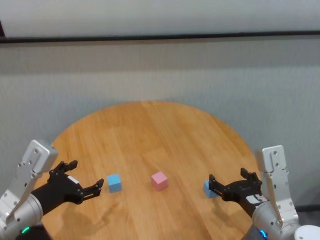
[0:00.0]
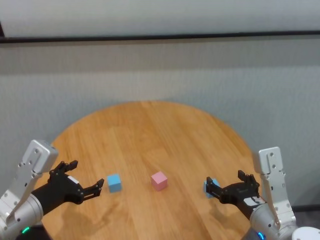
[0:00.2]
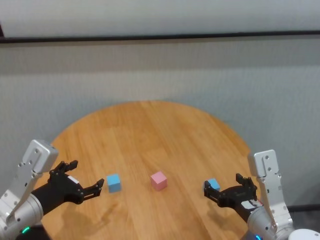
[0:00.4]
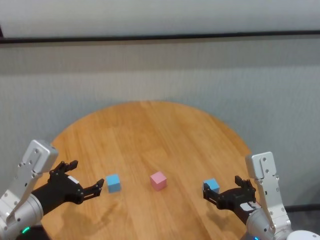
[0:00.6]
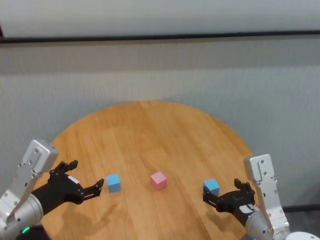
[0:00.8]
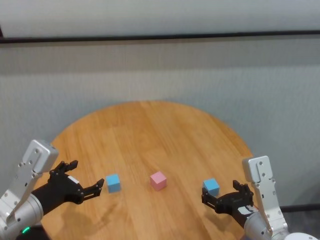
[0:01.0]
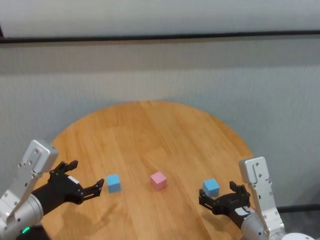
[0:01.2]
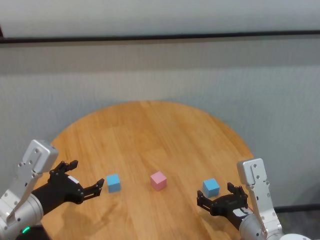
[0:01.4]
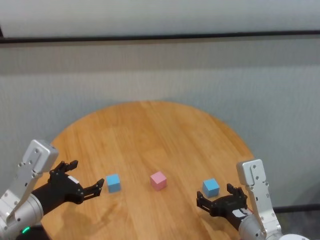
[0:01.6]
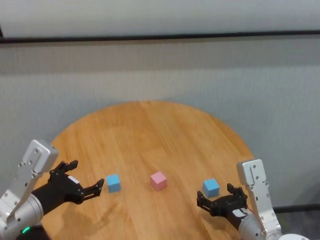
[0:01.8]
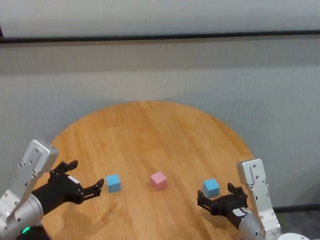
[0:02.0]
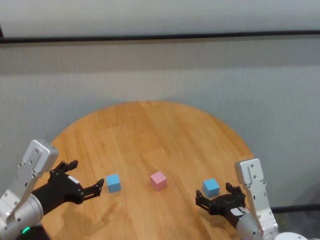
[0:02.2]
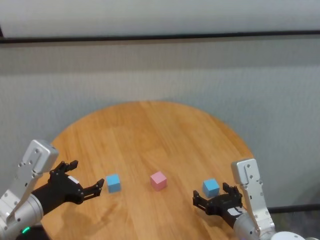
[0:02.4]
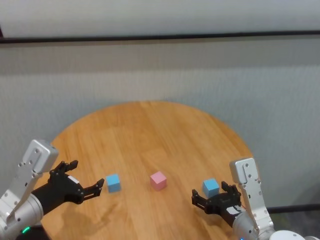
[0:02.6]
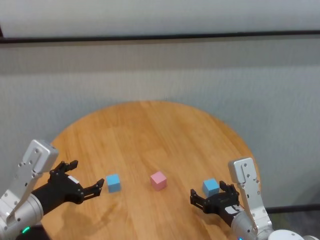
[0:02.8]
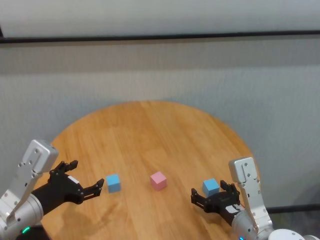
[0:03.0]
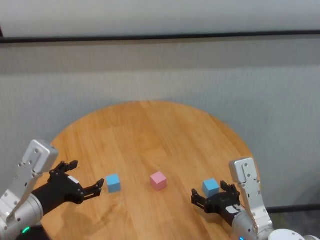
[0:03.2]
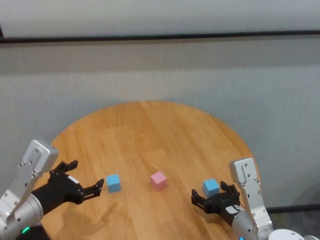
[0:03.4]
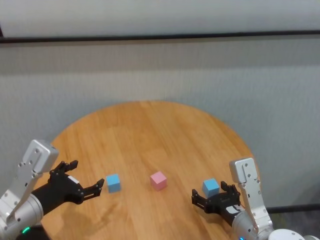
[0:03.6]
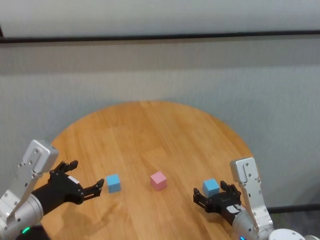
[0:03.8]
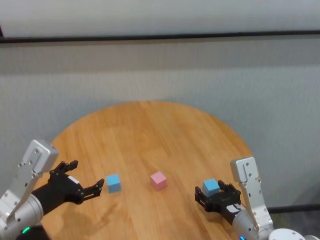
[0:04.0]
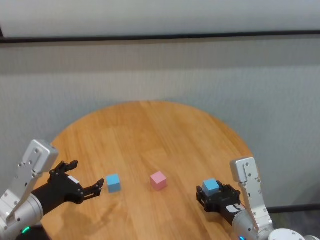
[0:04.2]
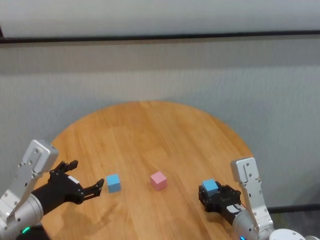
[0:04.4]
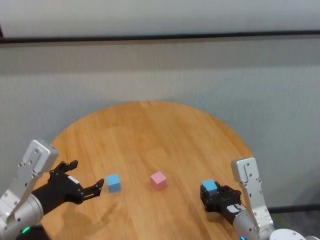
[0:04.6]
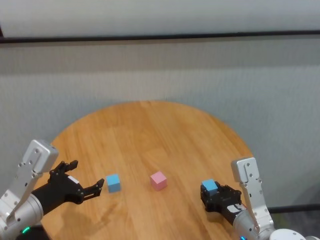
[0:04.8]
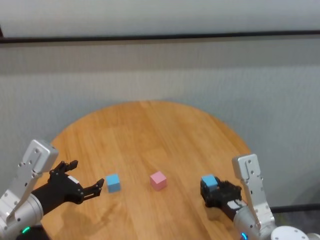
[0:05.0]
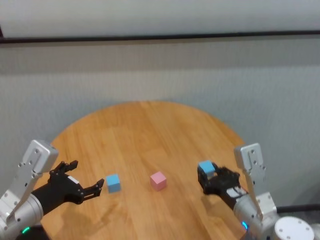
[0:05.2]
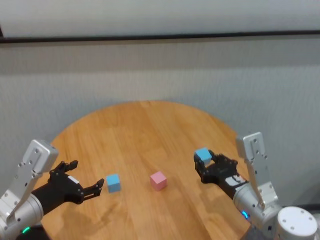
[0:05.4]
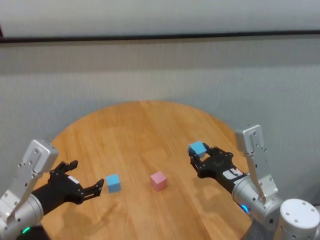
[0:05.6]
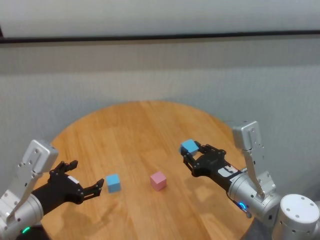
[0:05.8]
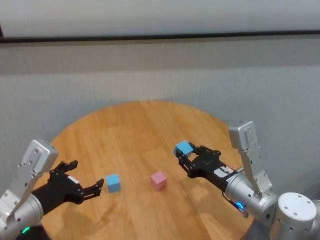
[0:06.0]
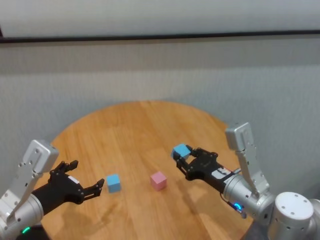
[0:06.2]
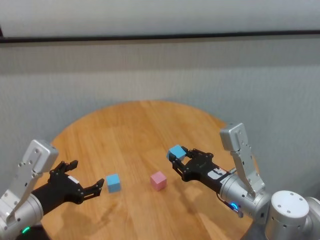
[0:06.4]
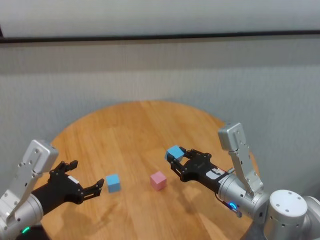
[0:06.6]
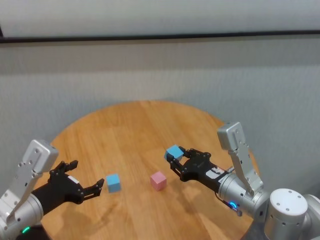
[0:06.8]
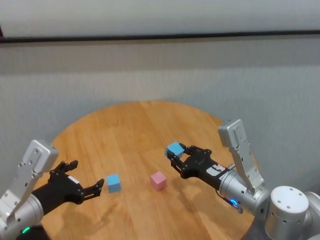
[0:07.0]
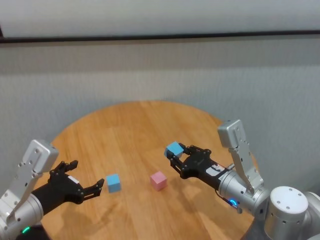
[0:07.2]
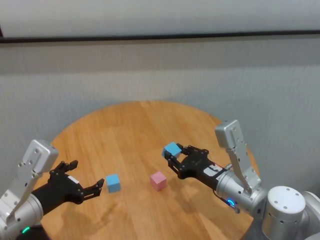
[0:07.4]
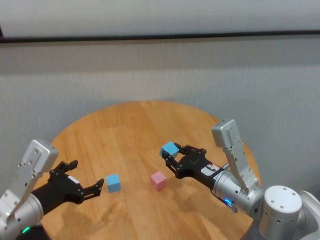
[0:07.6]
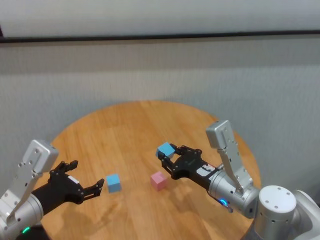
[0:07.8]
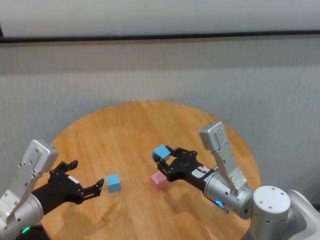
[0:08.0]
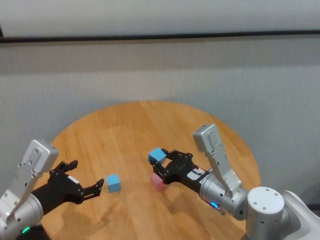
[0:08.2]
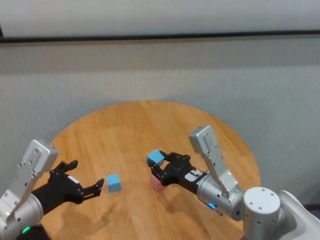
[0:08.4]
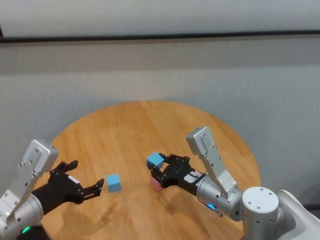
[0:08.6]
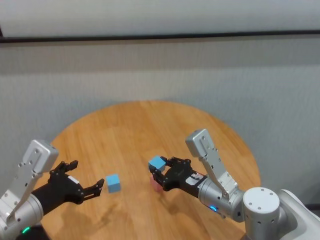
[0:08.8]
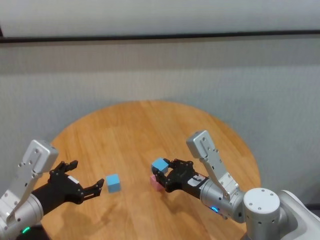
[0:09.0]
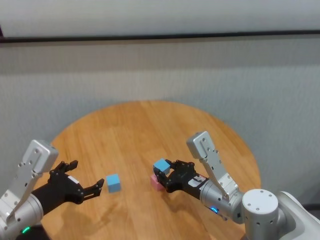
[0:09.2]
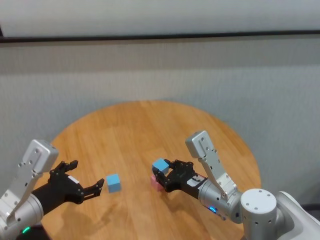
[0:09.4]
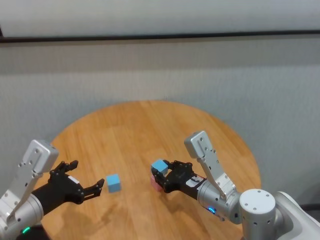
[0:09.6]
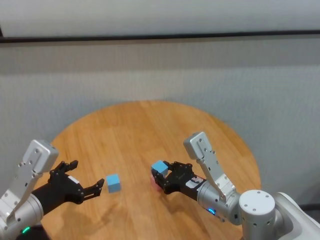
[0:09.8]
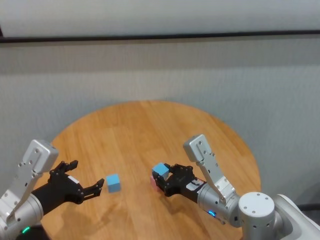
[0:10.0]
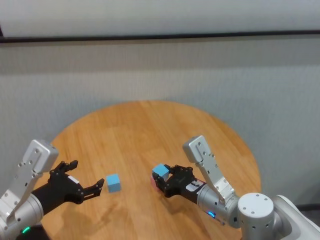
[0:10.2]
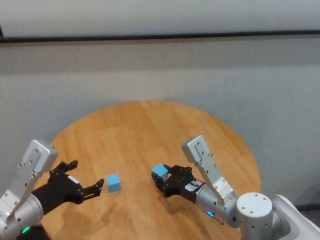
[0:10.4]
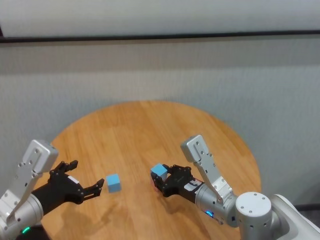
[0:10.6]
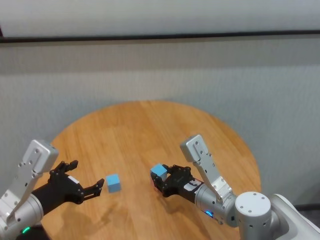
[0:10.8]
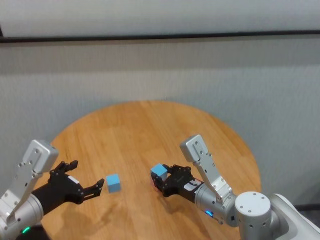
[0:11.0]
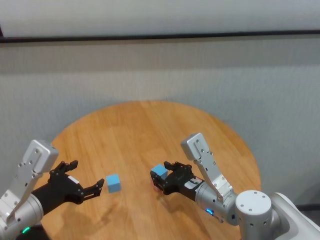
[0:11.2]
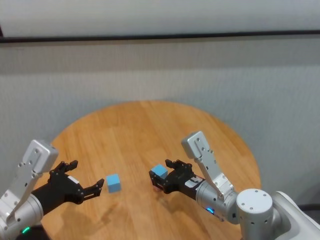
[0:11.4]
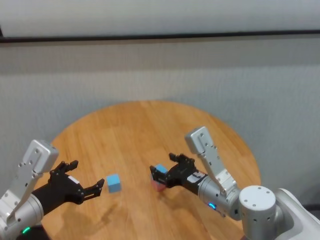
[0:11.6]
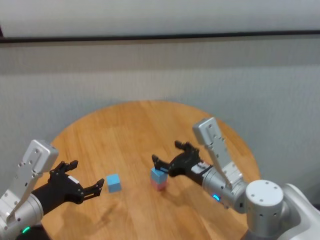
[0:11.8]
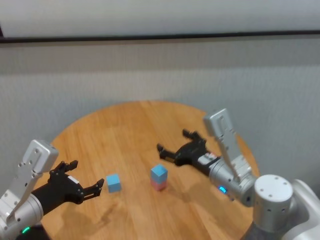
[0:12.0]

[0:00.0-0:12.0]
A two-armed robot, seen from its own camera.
Task of the whole recording: stack building blocks on the table.
Step, 0:00.0 to 0:04.4: Grasp the blue building block with right gripper.
Step, 0:04.8 to 0:11.4: Place the blue building block on the pink building blocks with right gripper.

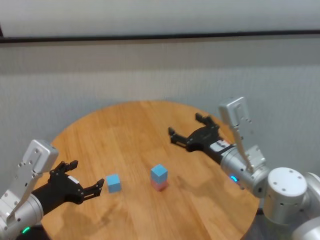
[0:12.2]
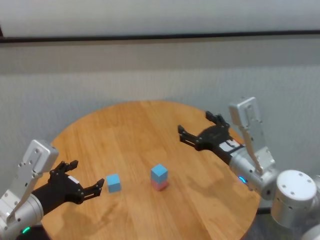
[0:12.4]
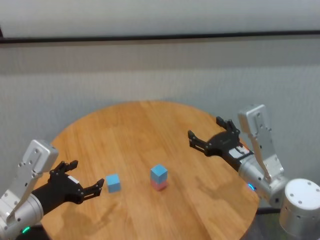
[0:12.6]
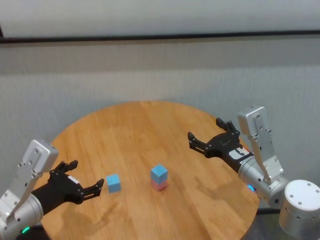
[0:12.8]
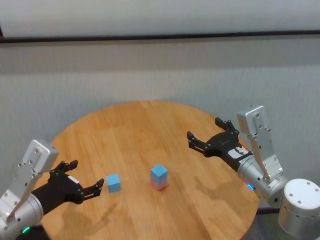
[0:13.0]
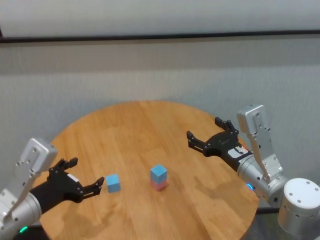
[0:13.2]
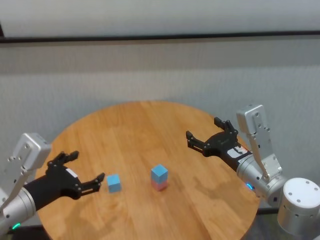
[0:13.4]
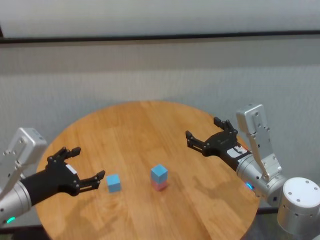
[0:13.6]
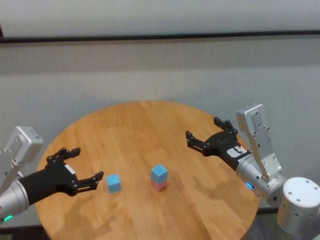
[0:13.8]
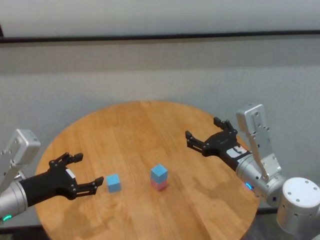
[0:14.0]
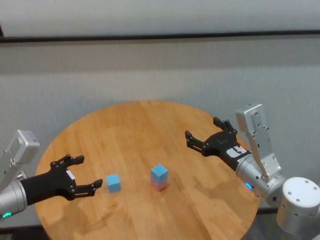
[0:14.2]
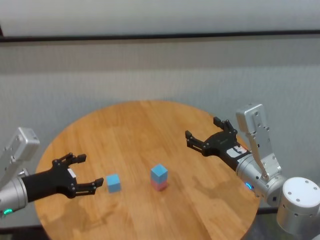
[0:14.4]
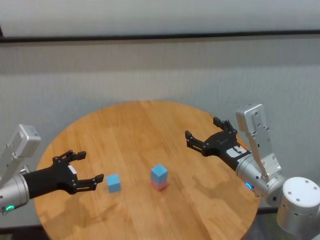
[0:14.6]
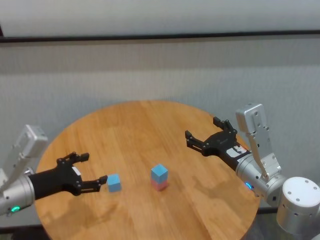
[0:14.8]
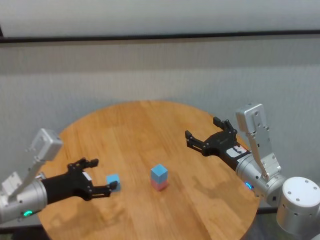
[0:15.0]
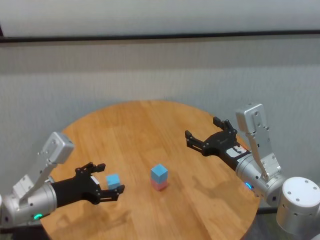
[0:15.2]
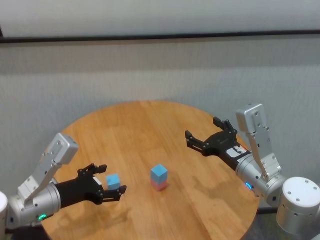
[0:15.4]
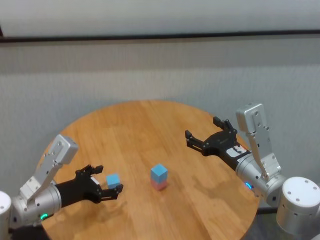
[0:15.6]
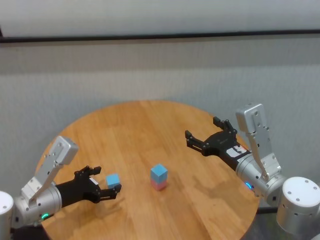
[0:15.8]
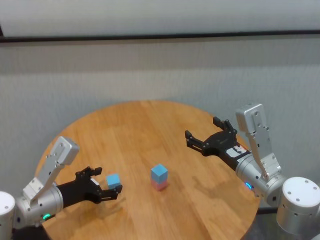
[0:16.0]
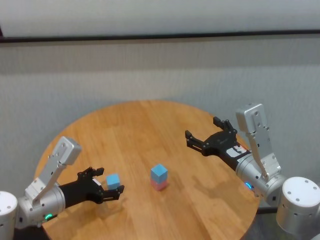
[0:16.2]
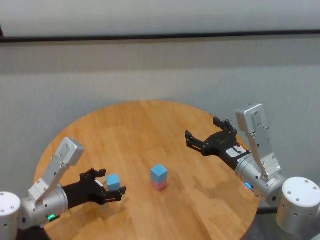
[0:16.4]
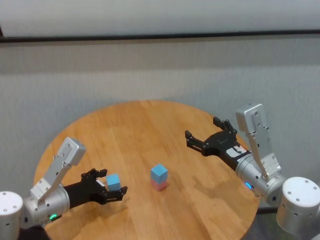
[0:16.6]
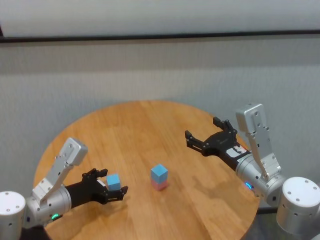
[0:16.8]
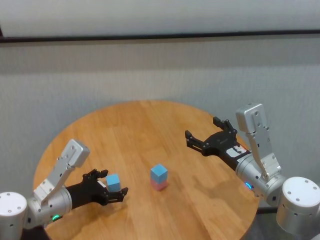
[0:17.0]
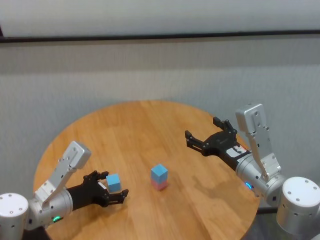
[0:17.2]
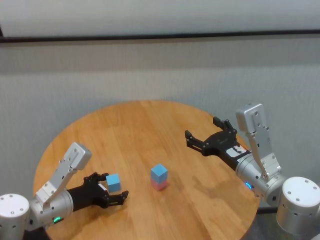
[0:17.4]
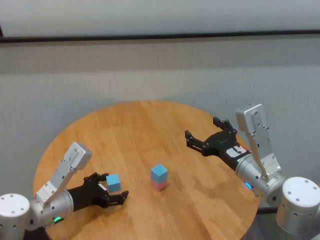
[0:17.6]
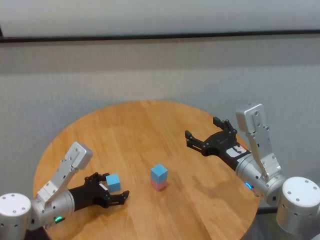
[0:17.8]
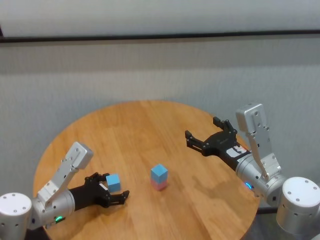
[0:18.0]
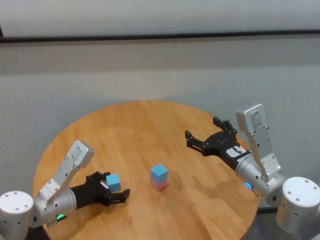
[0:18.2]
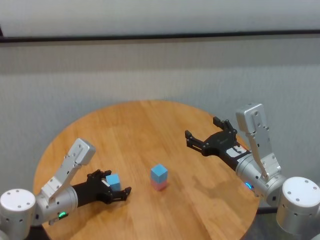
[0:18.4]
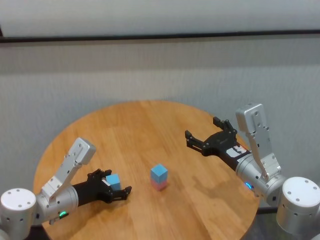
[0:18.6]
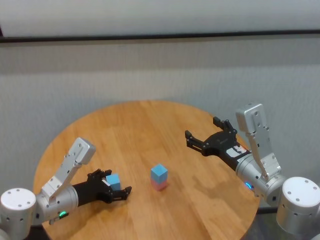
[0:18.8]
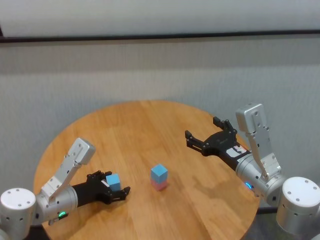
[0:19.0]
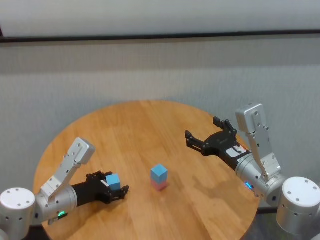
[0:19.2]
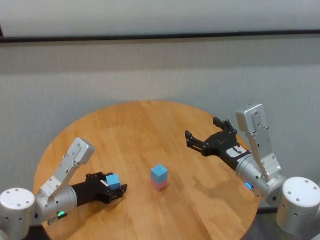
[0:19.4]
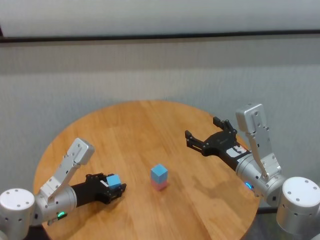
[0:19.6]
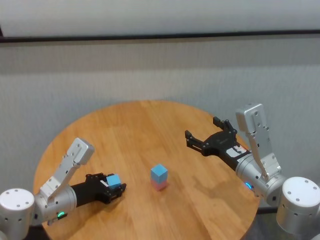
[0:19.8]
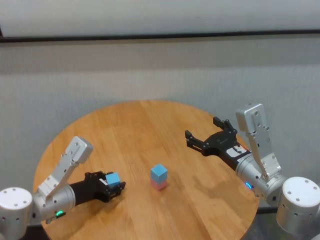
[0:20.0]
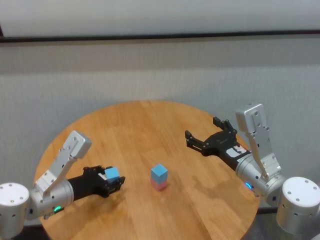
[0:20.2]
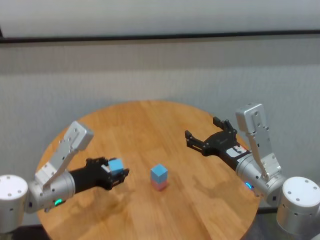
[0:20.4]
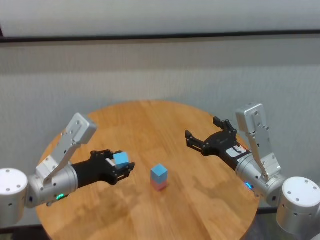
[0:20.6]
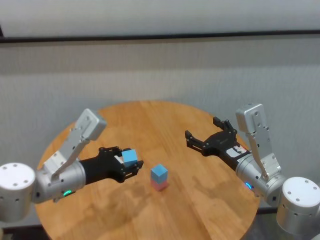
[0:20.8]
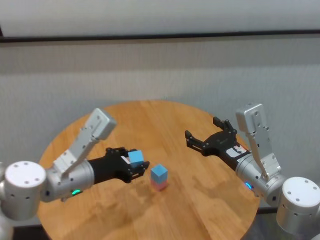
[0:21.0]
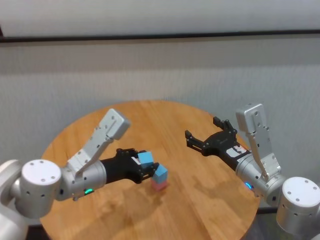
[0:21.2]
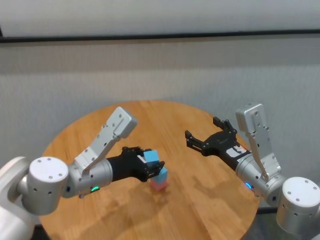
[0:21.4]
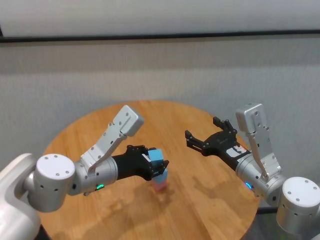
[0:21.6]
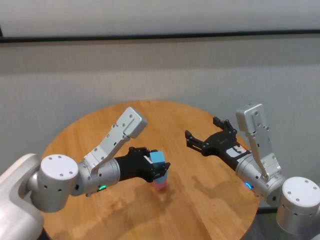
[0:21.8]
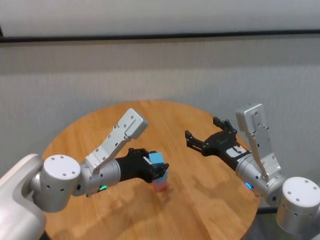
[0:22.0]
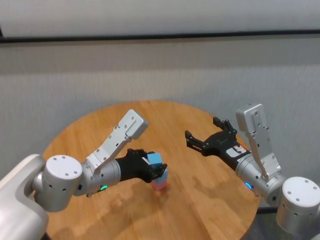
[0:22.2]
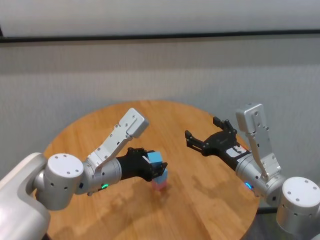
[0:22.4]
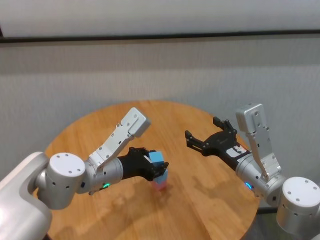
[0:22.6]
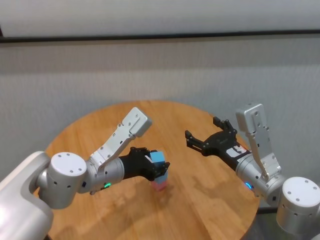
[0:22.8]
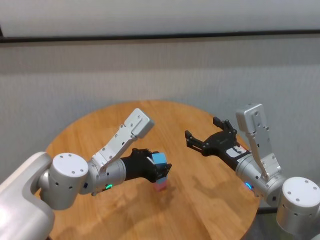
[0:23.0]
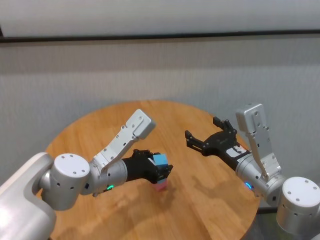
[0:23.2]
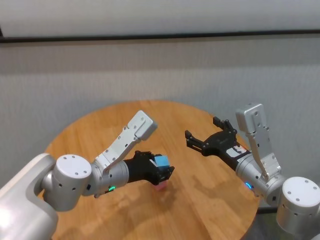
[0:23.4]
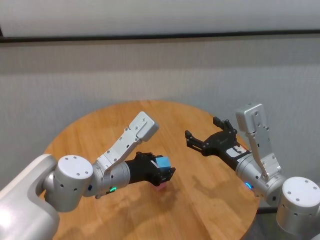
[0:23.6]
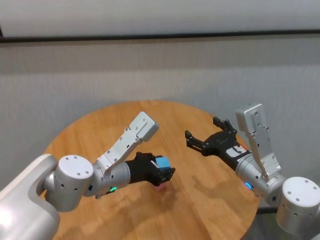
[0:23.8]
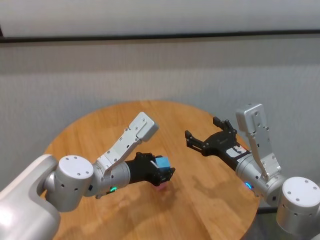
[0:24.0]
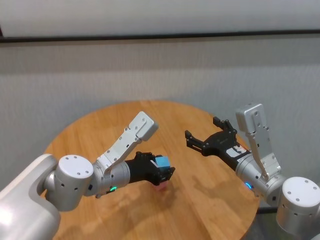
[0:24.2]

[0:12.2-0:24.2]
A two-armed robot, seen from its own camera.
Task of the whole recording: stack building blocks on the table.
Step, 0:12.2 to 0:19.4: Grasp the blue building block with left gripper.
